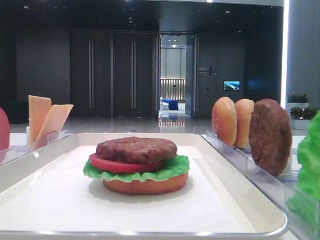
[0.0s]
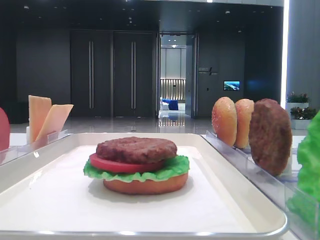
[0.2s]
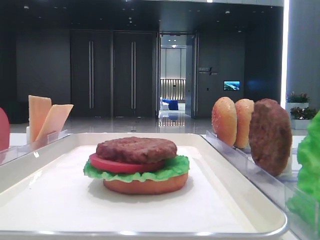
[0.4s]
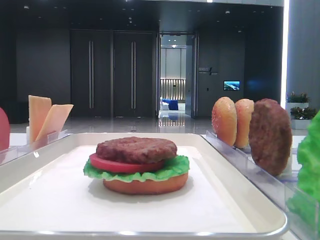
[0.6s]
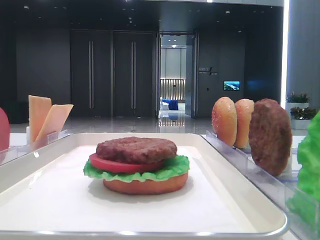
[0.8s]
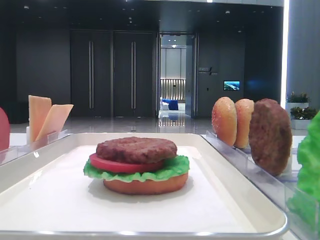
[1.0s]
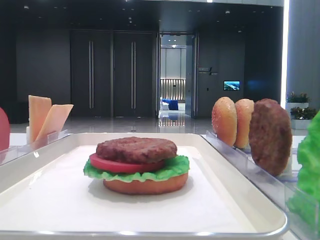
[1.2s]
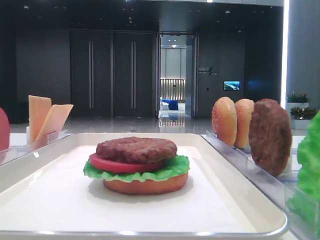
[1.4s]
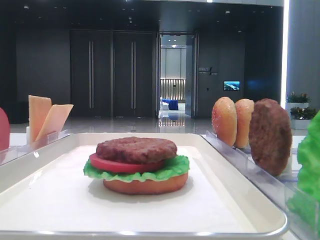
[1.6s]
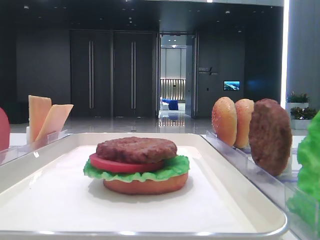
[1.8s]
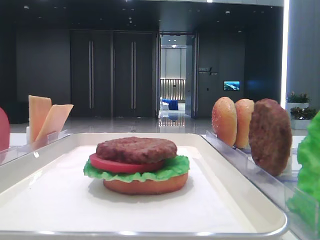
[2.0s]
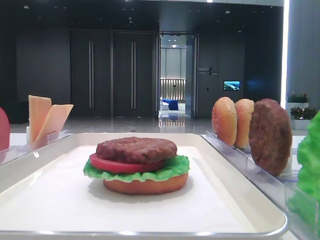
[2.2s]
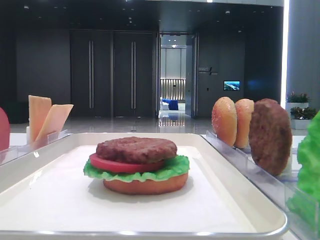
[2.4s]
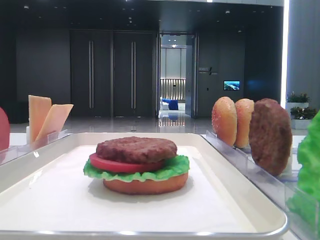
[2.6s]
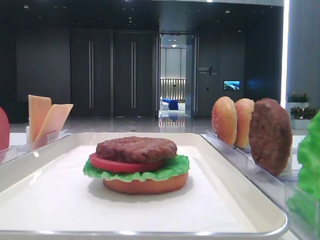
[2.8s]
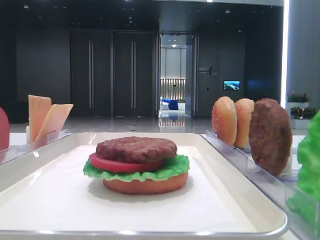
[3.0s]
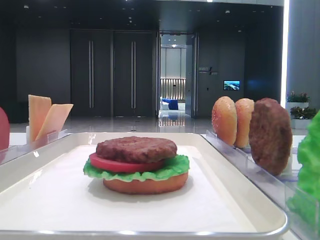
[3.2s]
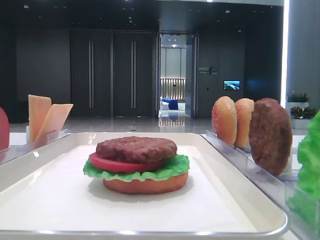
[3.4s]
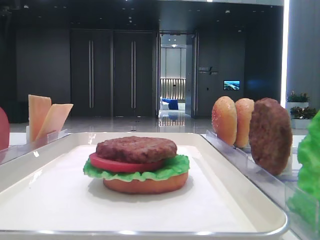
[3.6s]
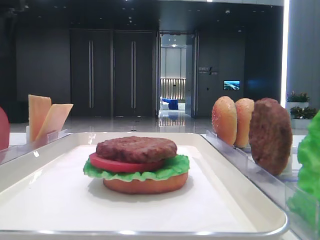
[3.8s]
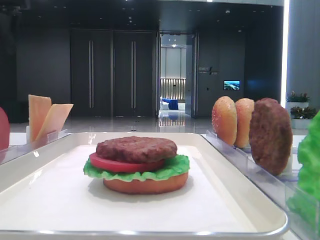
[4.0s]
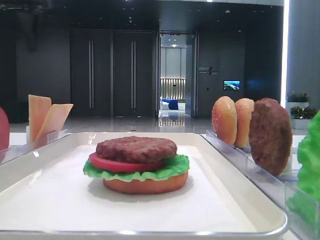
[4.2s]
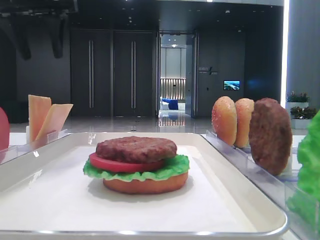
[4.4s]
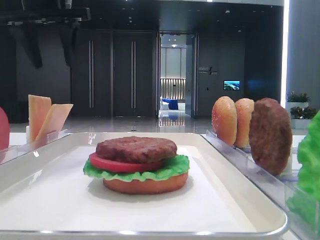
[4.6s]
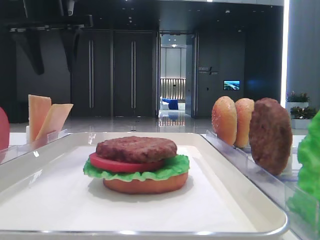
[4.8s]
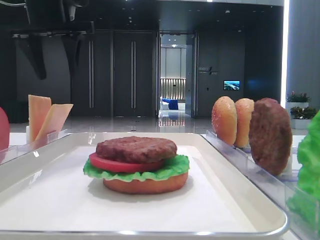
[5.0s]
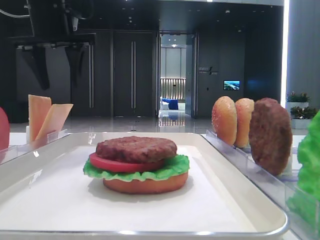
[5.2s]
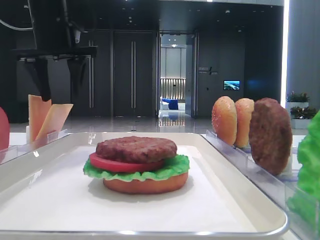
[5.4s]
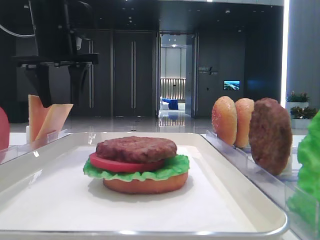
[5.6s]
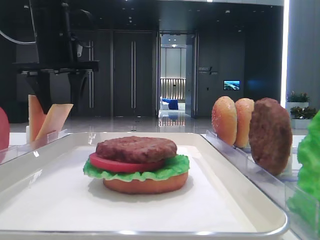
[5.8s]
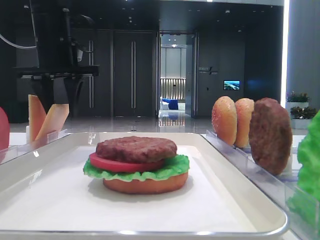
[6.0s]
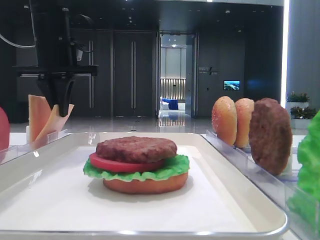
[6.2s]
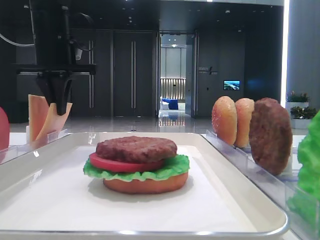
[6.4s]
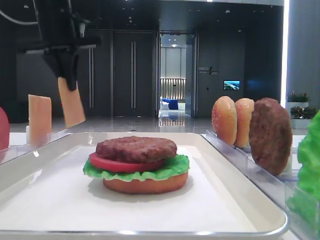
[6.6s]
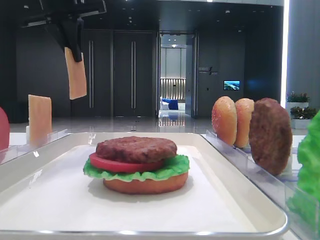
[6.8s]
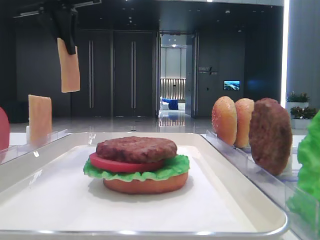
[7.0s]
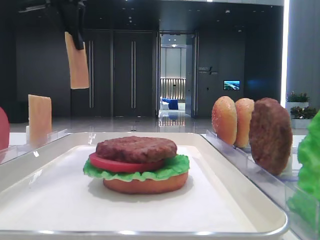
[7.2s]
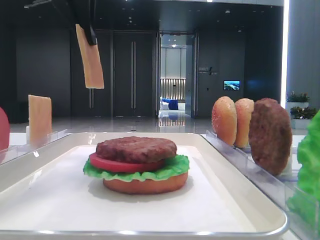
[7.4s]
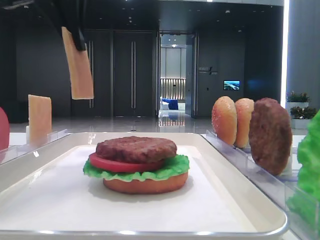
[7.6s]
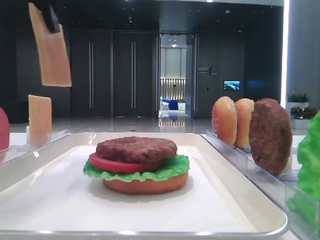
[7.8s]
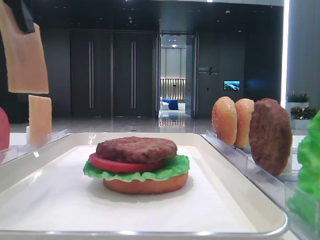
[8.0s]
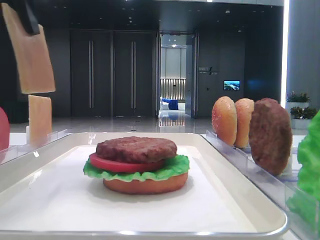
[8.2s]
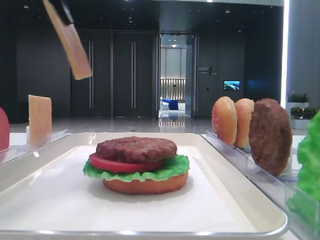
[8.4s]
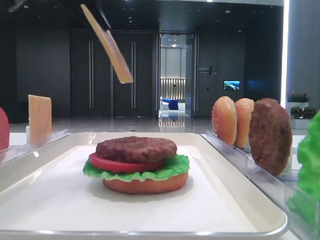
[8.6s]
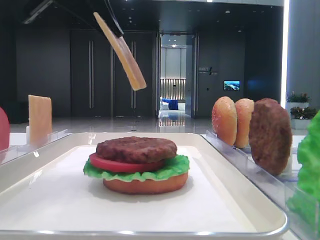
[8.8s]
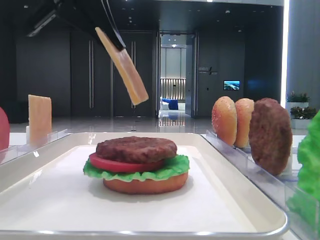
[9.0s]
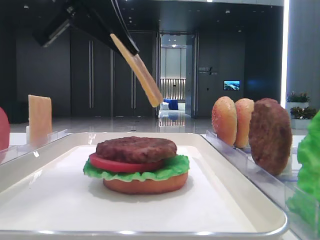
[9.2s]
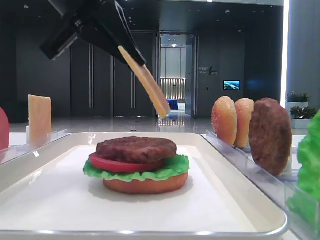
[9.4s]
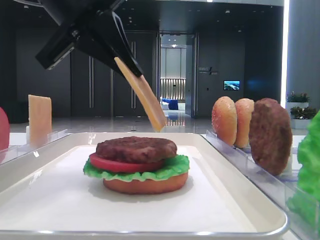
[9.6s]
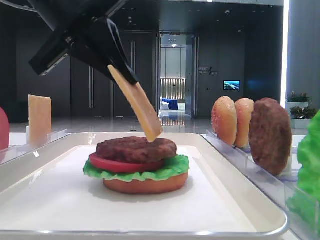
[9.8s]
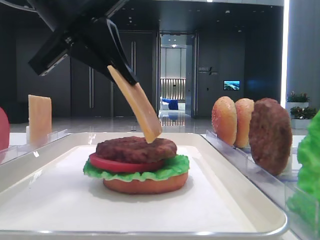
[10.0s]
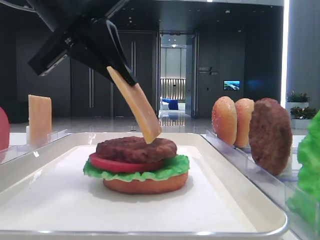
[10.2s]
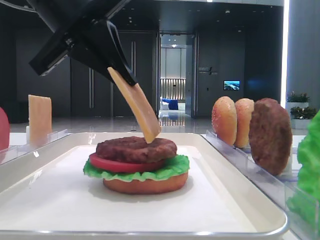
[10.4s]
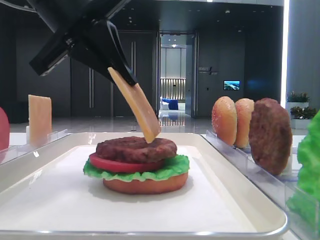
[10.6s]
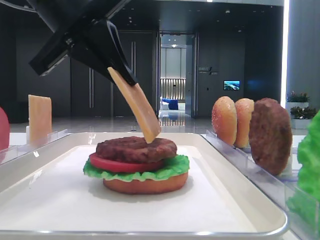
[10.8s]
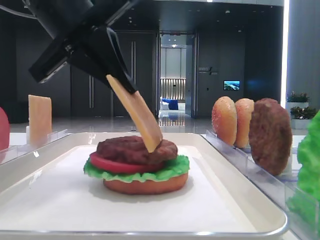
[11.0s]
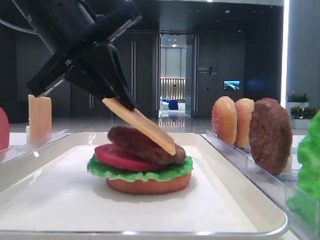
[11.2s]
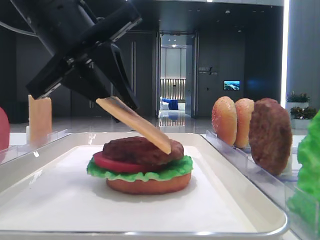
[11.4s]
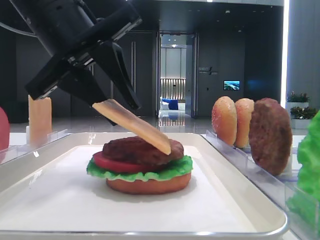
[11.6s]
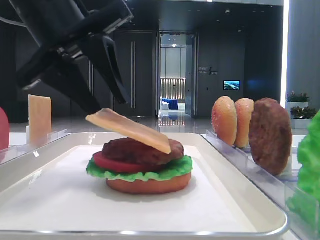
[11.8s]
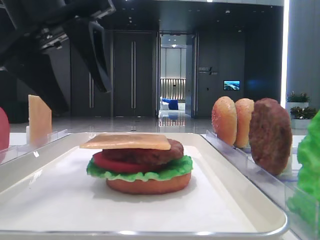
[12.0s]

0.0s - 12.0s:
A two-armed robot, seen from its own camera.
Step, 0.0s - 6.2s: Pick up the cheese slice with the left hand.
Step, 6.4s - 11.8s: Place the cheese slice on the patty with the left hand.
3.0s - 4.4s: The left gripper heads forward and to the right, covering some 15 cm.
4.4s - 6.0s: The left gripper is displaced downward by approximately 10 cm.
6.0s - 7.6s: The left gripper shifts some 15 cm backward and upward, and closes up.
7.6s - 9.0s: The left gripper shifts by about 5 cm.
9.0s - 10.4s: The grippers make only small movements.
10.4s - 12.0s: The left gripper opens its fingers.

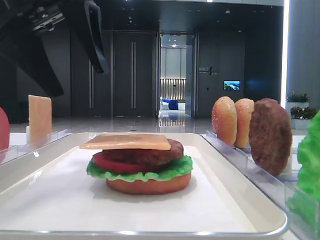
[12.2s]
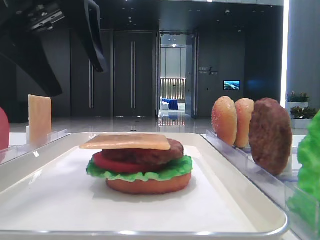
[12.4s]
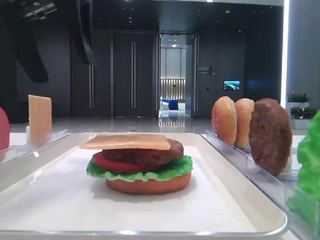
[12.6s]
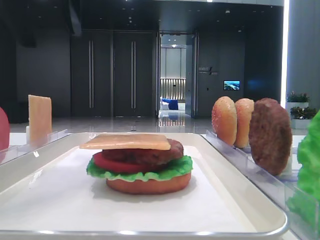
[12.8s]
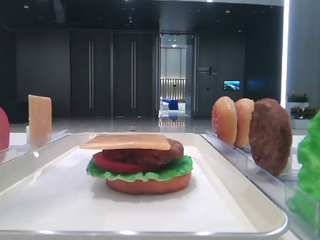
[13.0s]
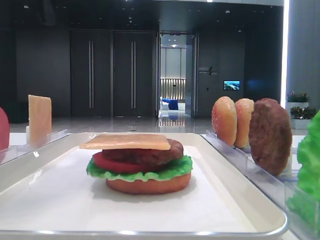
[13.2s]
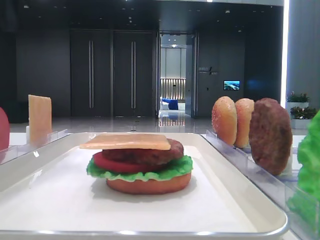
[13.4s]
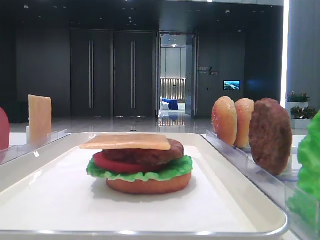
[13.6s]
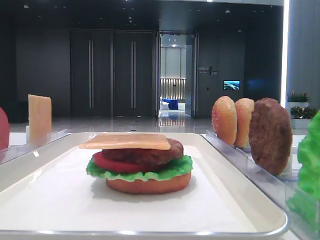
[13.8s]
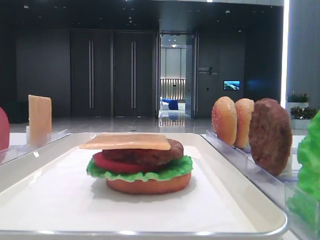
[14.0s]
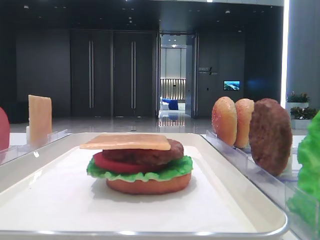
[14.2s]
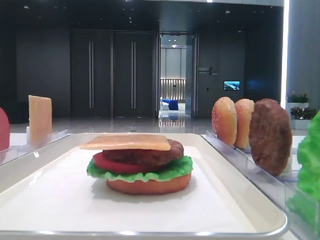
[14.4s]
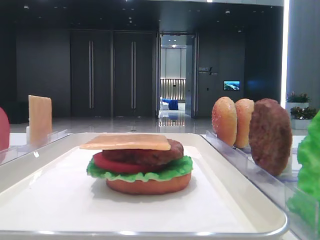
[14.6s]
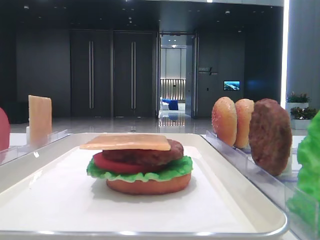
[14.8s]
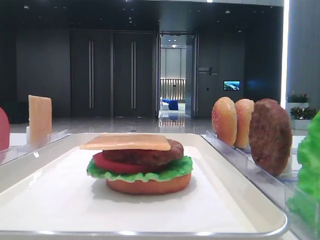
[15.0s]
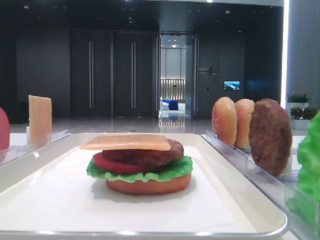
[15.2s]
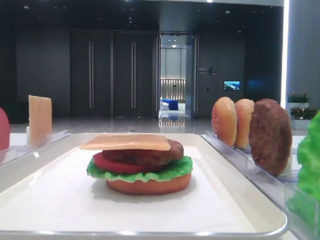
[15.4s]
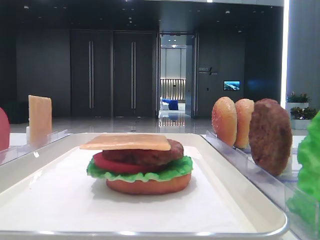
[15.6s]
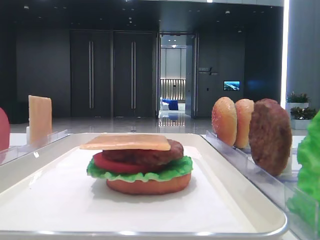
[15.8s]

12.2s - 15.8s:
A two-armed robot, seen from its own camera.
12.2s - 14.0s: The left gripper heads to the left and upward, covering some 20 cm.

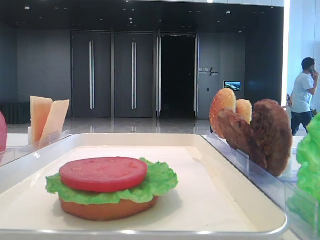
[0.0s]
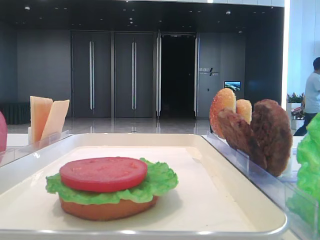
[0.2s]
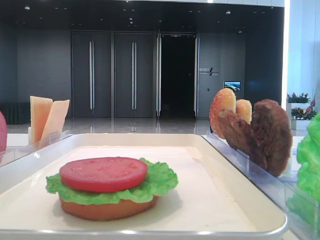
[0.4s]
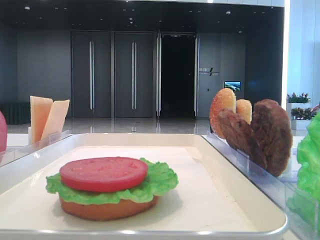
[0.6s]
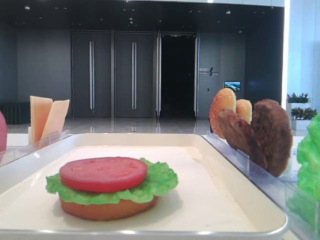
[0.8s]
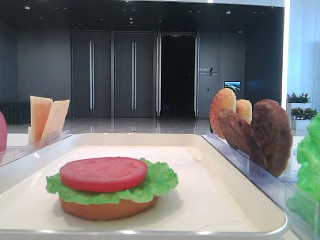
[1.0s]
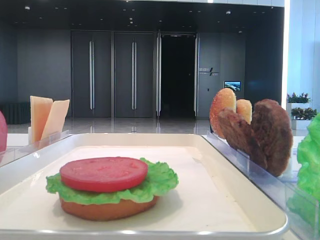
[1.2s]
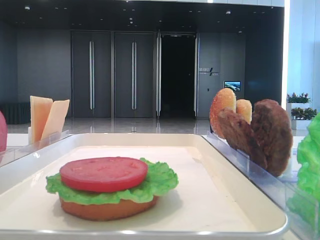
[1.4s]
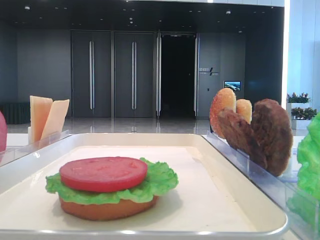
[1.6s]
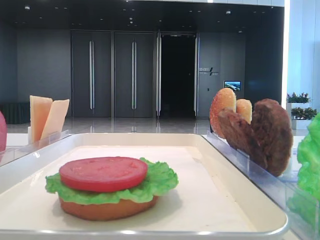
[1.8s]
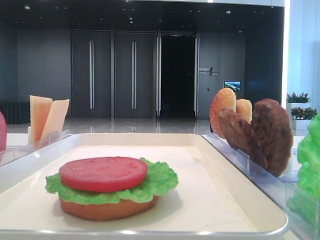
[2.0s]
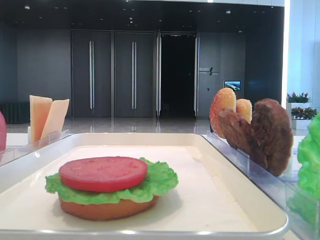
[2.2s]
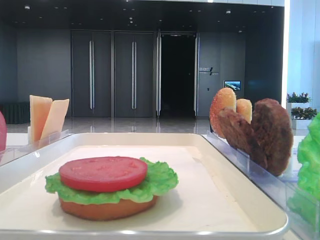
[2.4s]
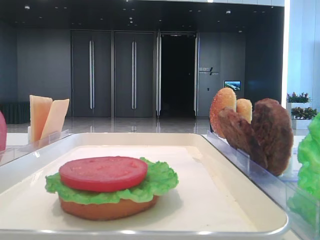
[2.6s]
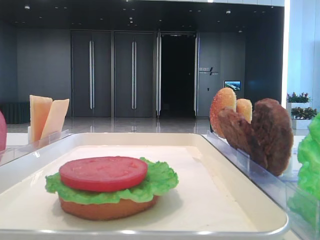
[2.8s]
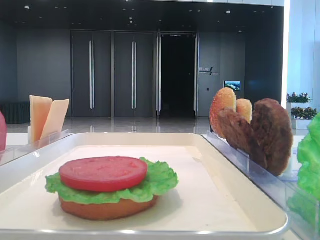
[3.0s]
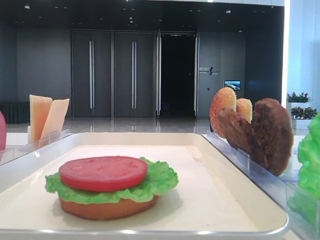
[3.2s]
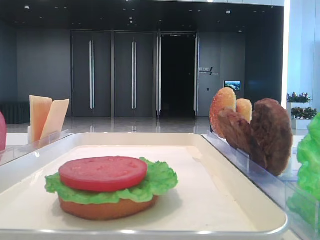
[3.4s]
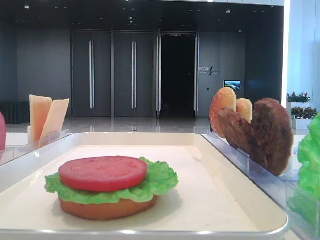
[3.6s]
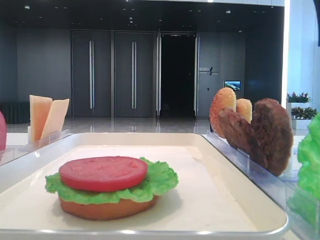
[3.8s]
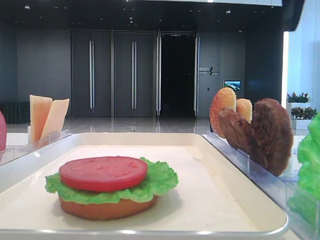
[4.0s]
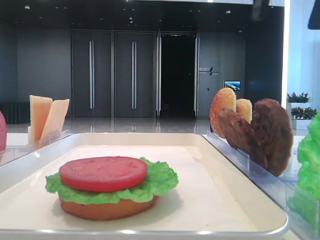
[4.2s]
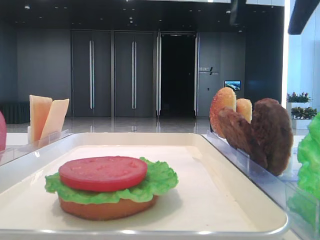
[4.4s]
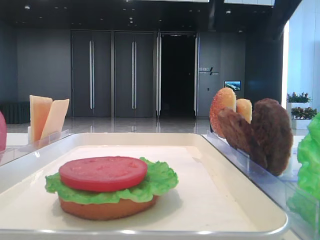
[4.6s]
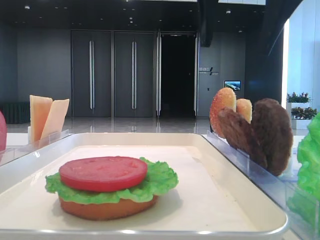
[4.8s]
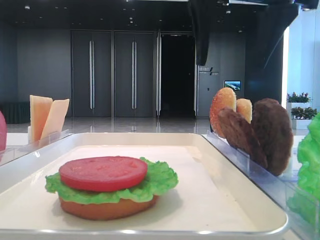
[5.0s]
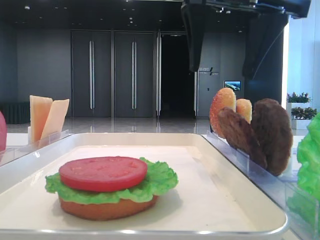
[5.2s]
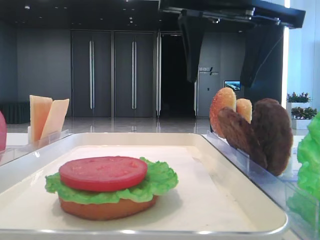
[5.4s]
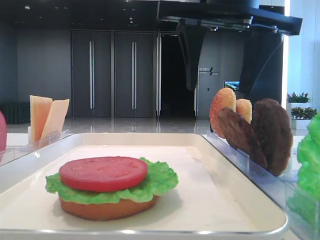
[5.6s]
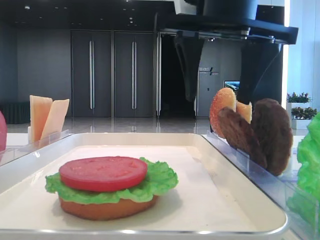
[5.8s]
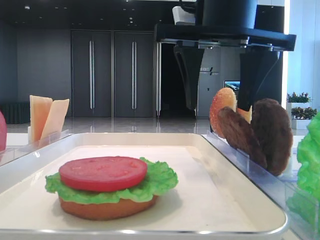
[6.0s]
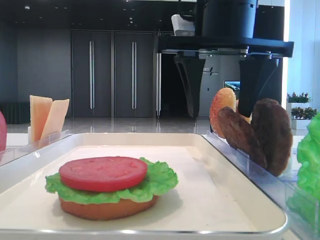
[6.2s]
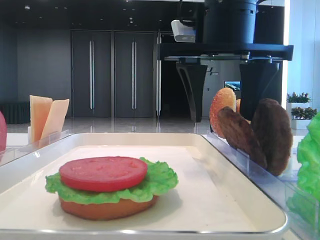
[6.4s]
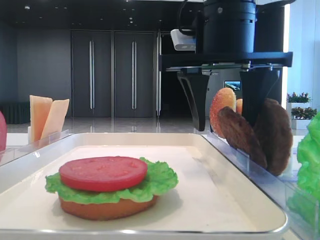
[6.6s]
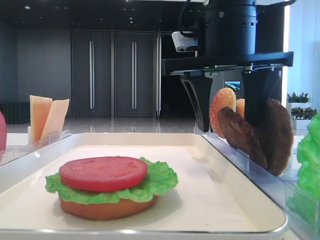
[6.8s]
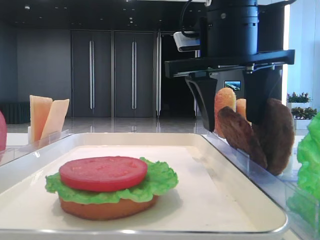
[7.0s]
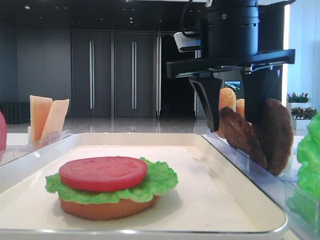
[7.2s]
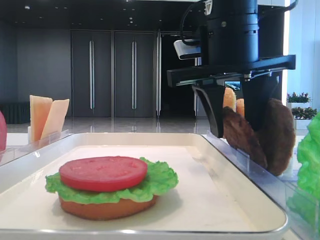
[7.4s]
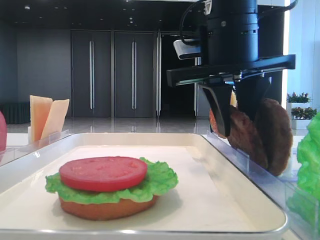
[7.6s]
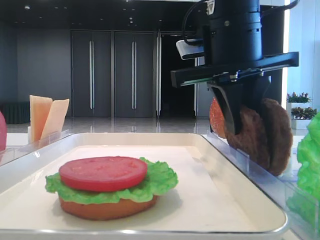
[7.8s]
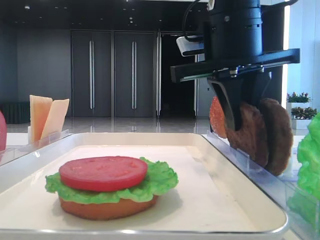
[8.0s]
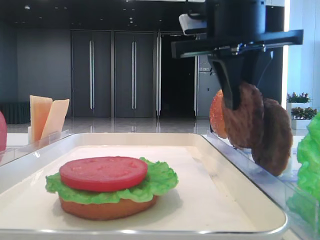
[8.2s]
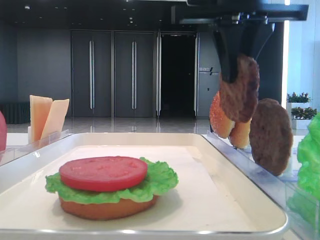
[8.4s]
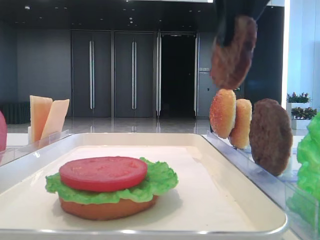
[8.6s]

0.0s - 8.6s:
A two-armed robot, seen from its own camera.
Step, 0.0s - 7.6s: Grab the patty with the right hand.
1.4s - 2.8s: The right gripper heads forward, covering some 20 cm.
2.8s - 4.4s: The right gripper shifts roughly 15 cm to the left.
4.4s - 5.8s: The right gripper heads downward and to the left, covering approximately 10 cm.
5.8s - 7.2s: The grippers make only small movements.
7.2s - 8.6s: The right gripper goes approximately 10 cm upward, and closes.
